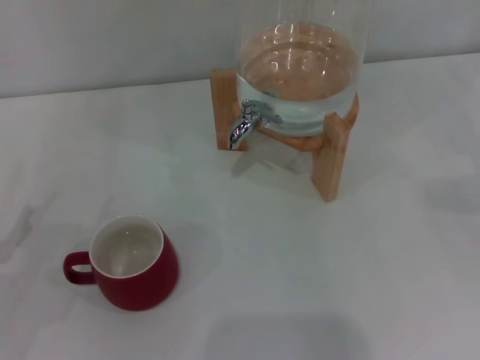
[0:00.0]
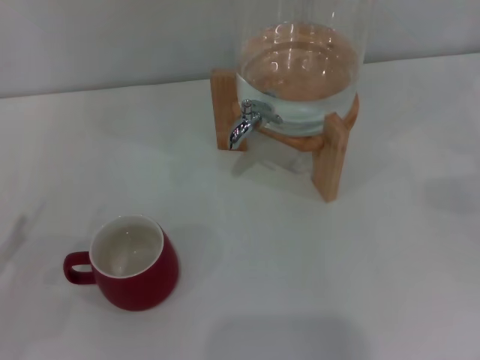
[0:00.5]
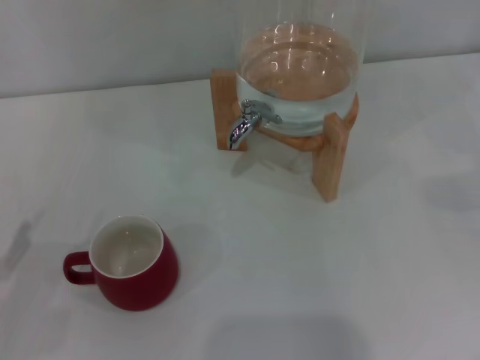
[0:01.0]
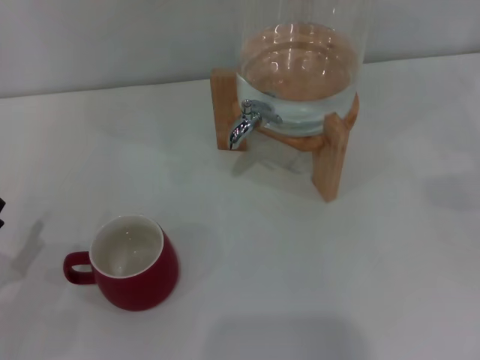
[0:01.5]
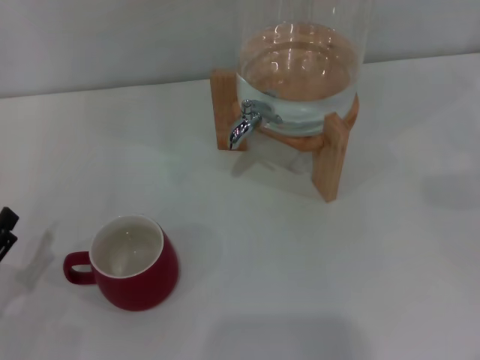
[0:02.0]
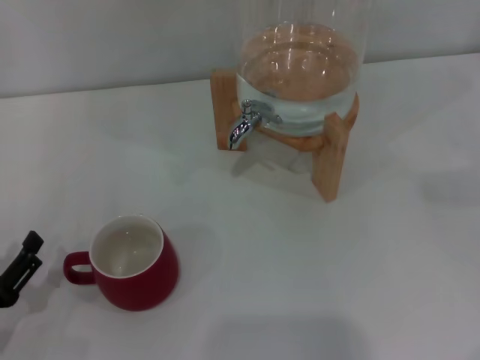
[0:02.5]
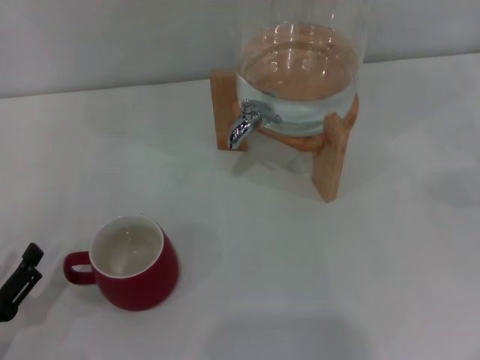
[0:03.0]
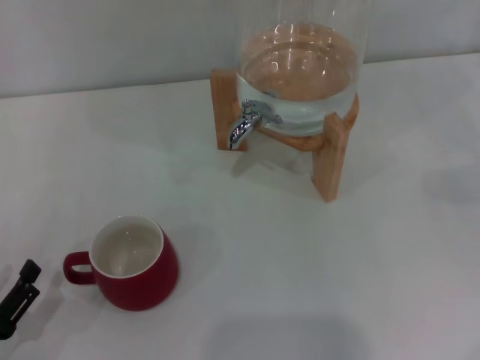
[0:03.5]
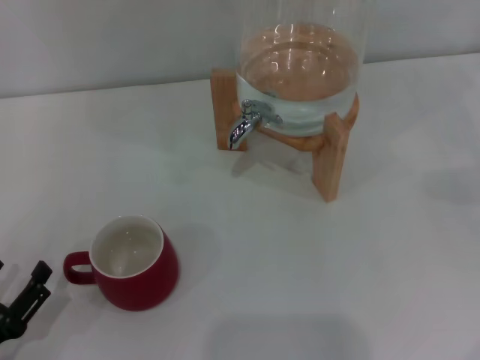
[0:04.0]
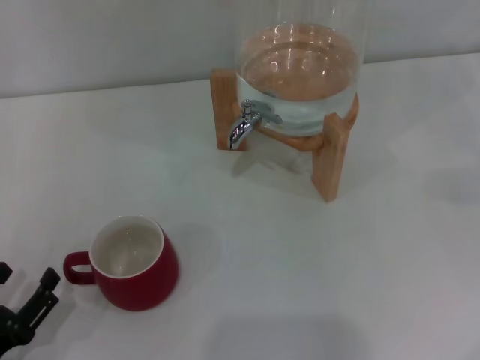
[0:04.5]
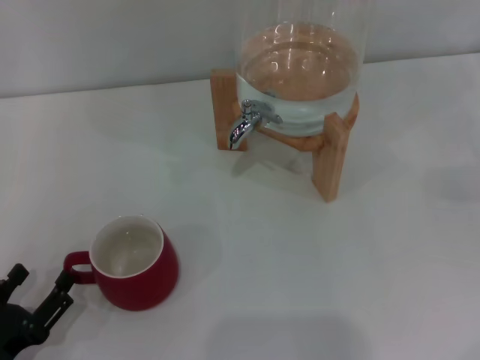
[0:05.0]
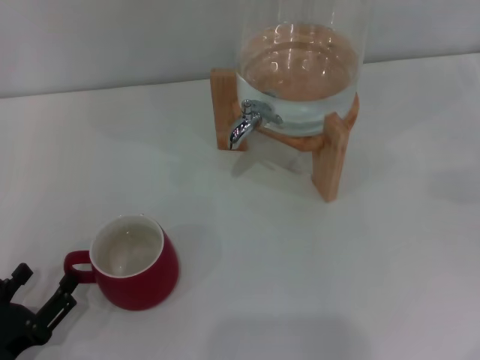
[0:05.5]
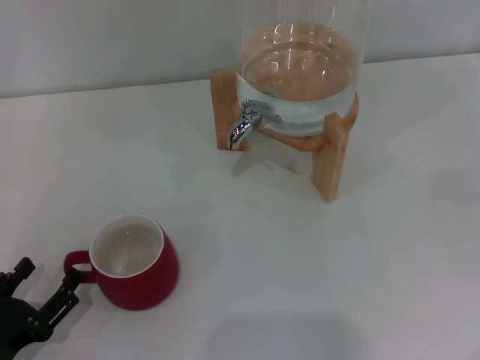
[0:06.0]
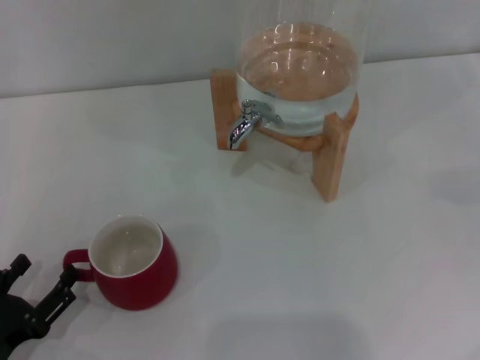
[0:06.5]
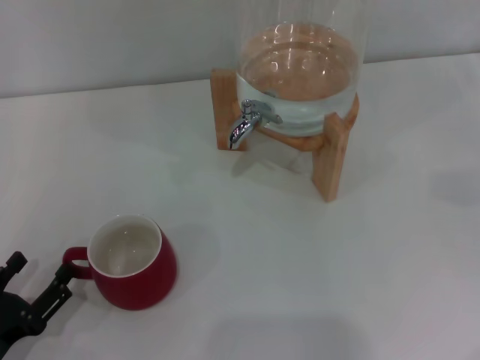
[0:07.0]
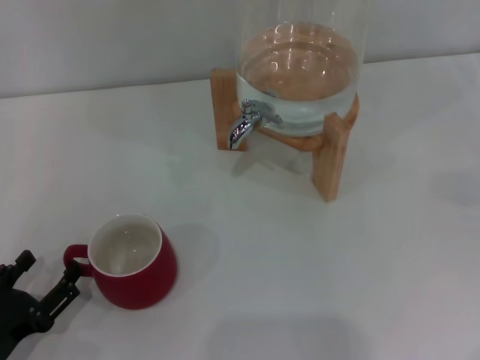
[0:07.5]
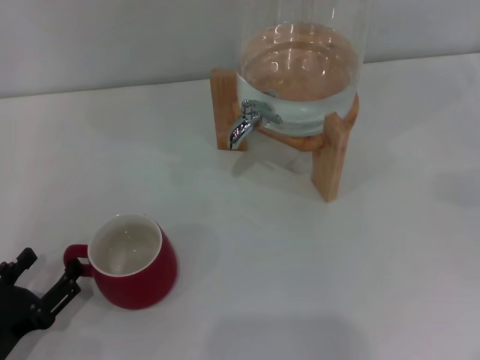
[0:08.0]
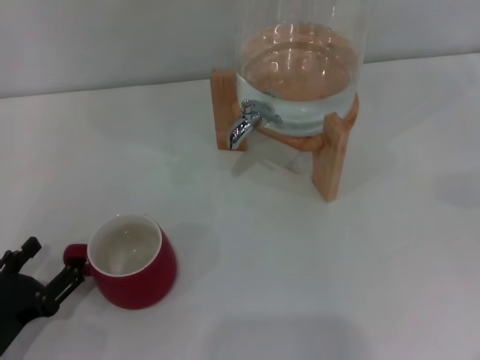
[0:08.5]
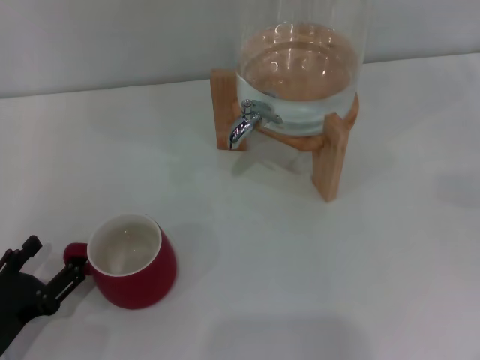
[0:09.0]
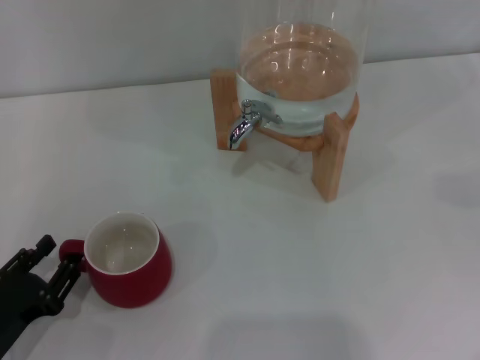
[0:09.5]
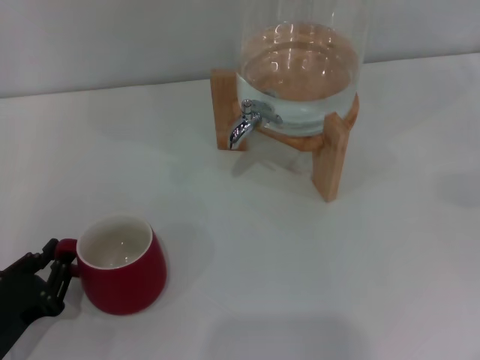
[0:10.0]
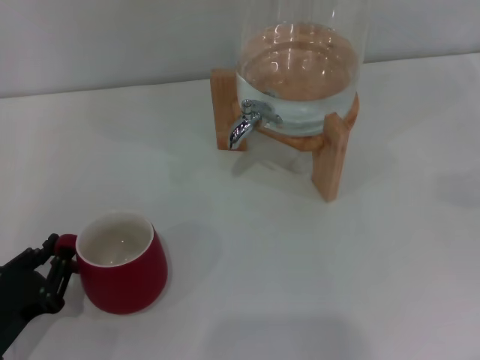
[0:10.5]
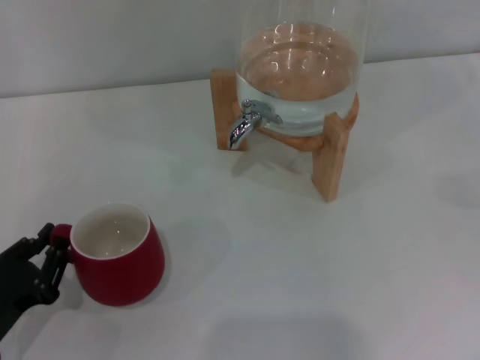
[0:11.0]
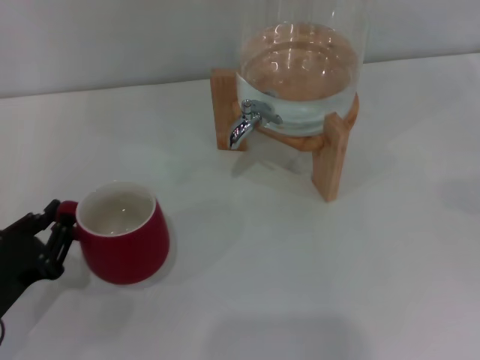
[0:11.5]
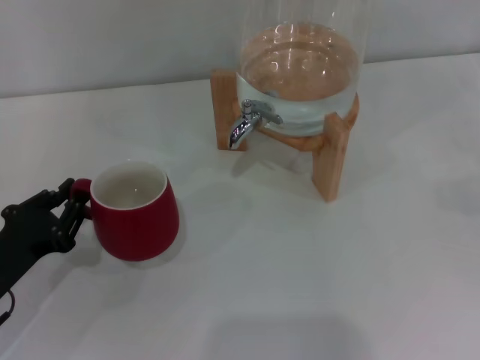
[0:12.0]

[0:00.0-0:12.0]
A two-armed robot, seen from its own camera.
Task of the whole recording: the left gripper pick up the red cup and place it horizontally under the faucet, the right gripper turn on the faucet to fill the cup, and then turn off the faucet.
0:02.0 to 0:06.0: The grippers stay close to where they were, moving slightly.
0:06.0 to 0:08.0: Neither gripper changes place.
0:08.0 to 0:10.0: The left gripper closes up.
0:10.0 to 0:12.0: The left gripper travels forward by about 5 cm.

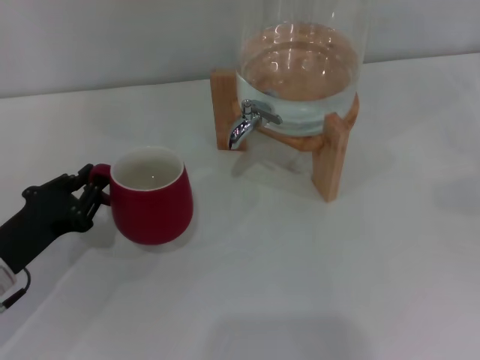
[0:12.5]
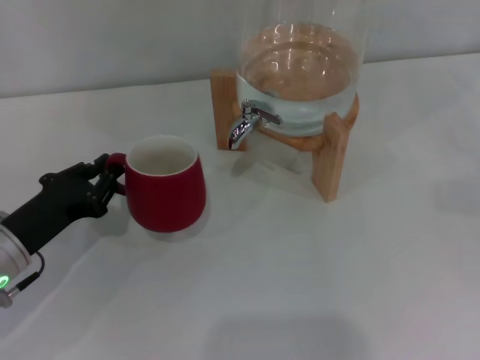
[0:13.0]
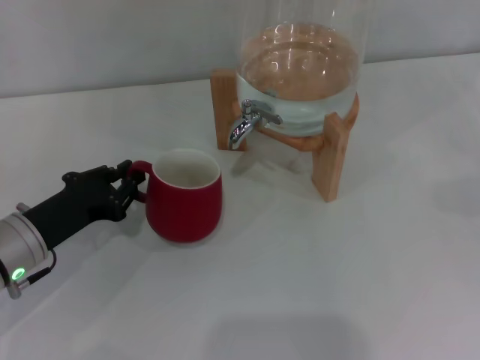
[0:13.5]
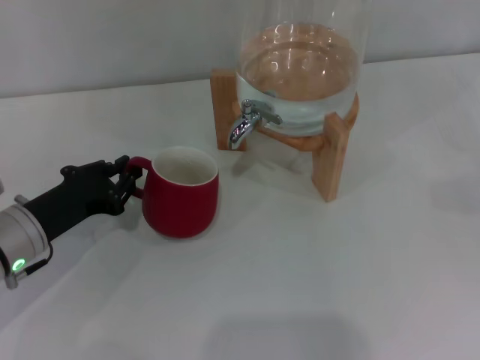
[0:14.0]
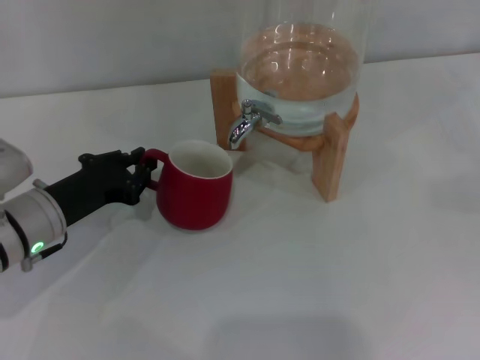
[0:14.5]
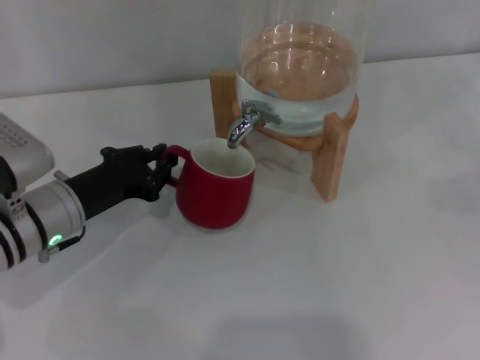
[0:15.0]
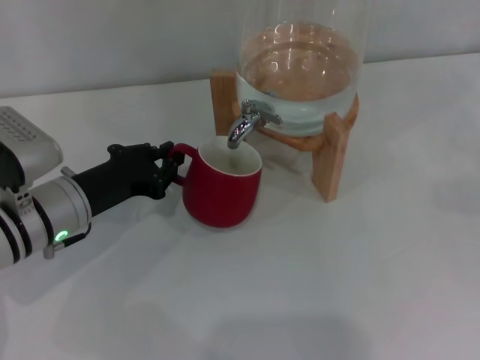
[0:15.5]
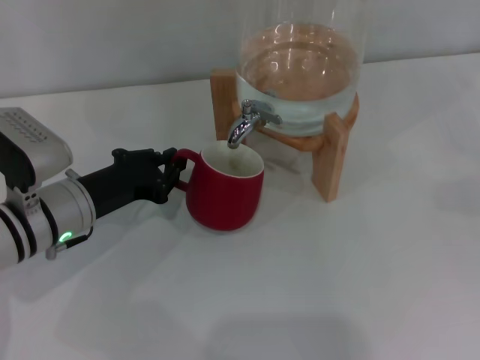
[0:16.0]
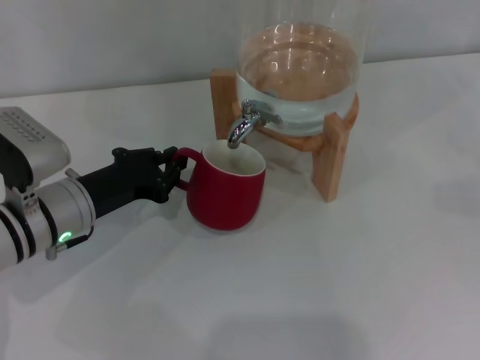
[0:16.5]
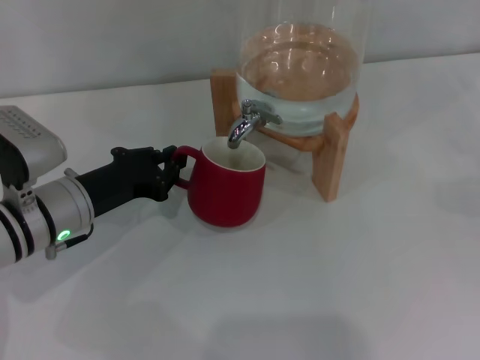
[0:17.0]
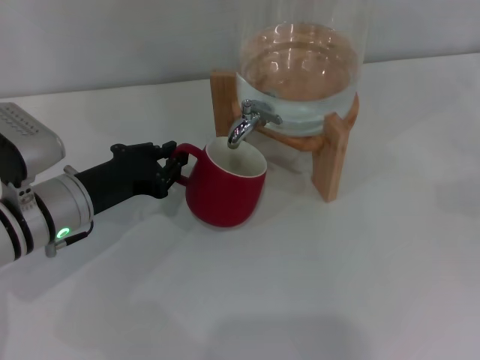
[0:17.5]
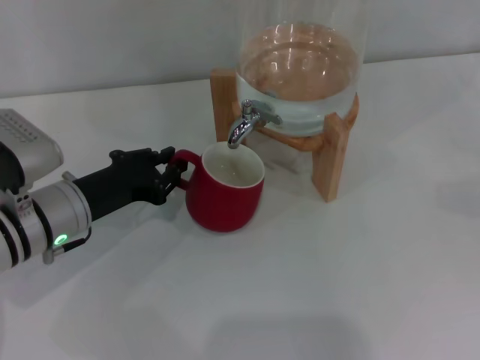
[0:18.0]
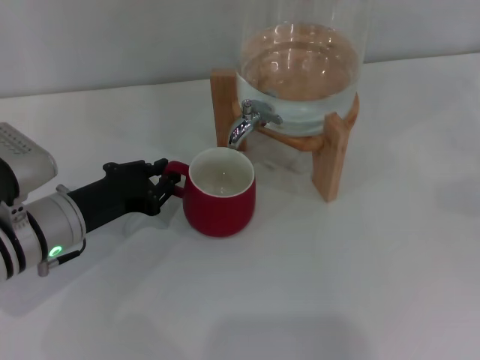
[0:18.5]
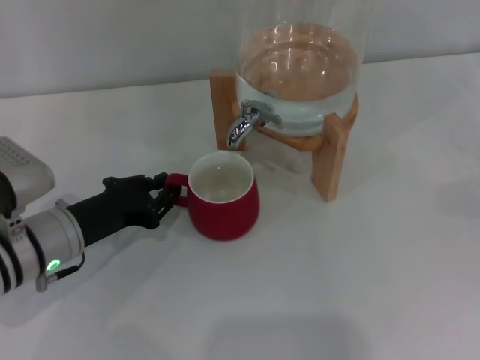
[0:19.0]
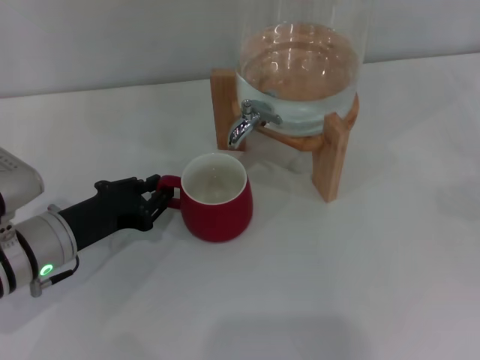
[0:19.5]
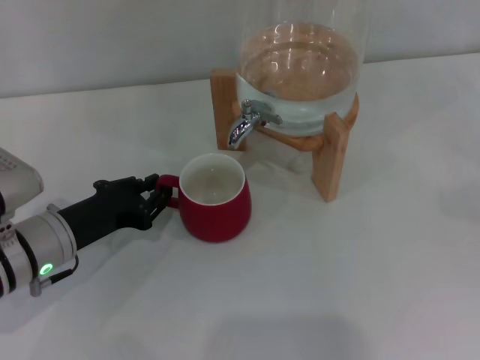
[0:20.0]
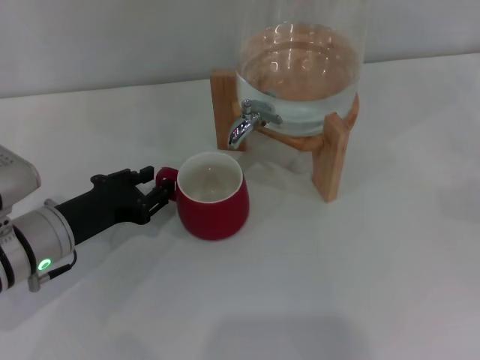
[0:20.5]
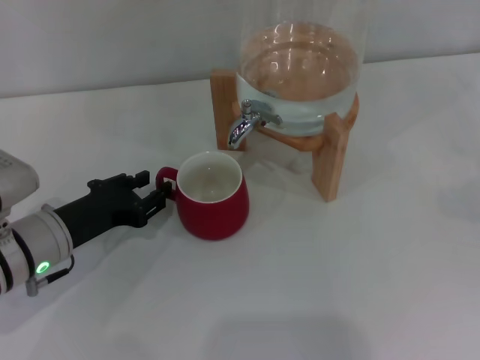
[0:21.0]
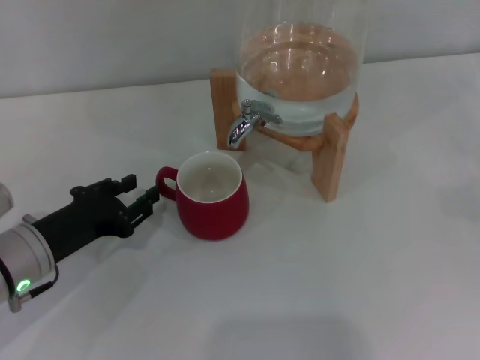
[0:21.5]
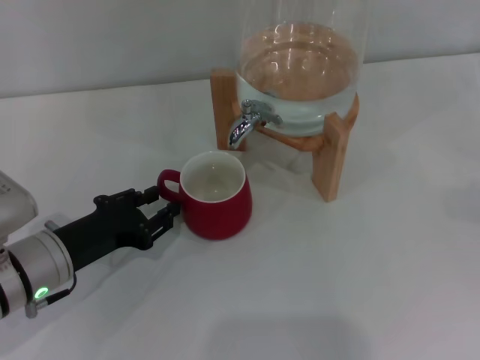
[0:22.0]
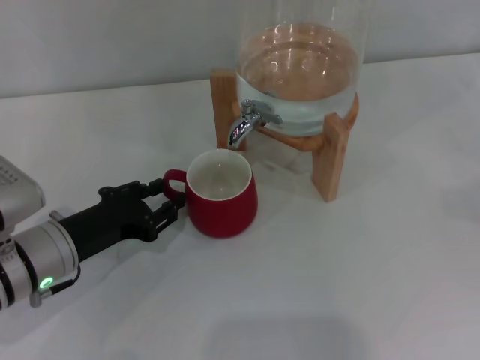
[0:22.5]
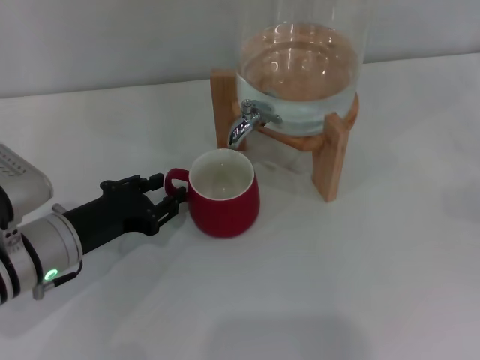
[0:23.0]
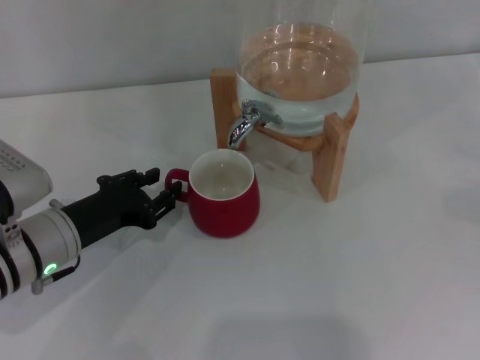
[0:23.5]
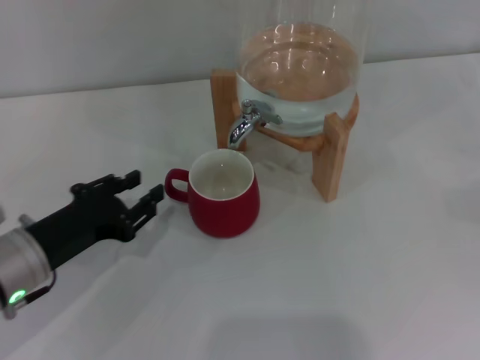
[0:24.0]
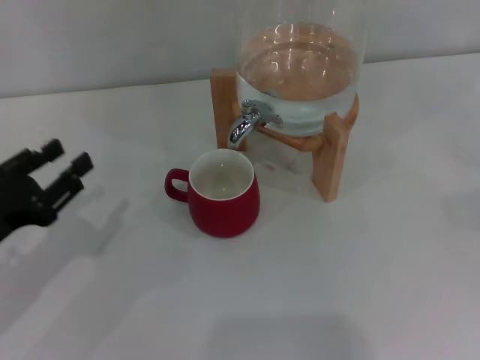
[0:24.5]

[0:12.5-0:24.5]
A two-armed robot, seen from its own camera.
Task of the whole recording: the left gripper pick up the red cup and place it horizontally under the faucet, the right gripper turn on the faucet to fill the cup, and then turn off the faucet.
Step, 0:12.5 to 0:24.0: Move the cup beneath the water dispenser nozzle with the left gripper.
0:12.5 to 0:14.5: The left gripper travels forward by approximately 5 cm.
0:14.5 to 0:22.5: The grippers make only small movements.
0:22.5 to 0:24.5: The left gripper travels to the left by approximately 5 cm.

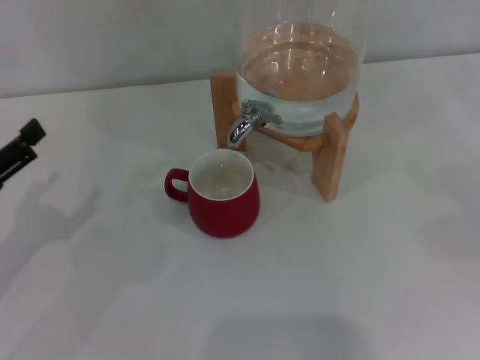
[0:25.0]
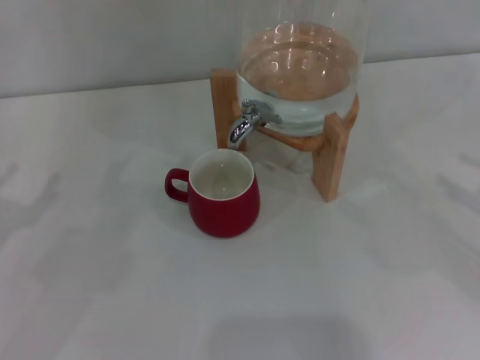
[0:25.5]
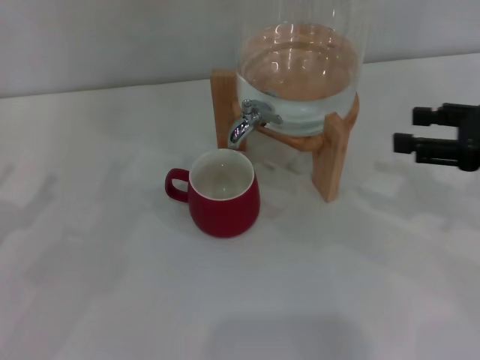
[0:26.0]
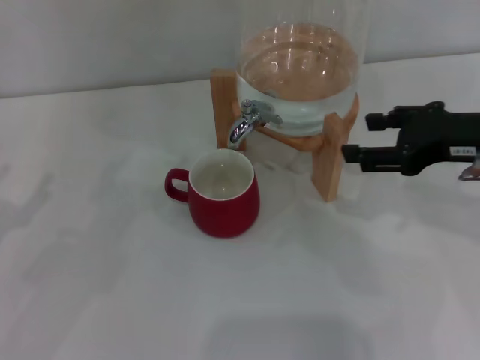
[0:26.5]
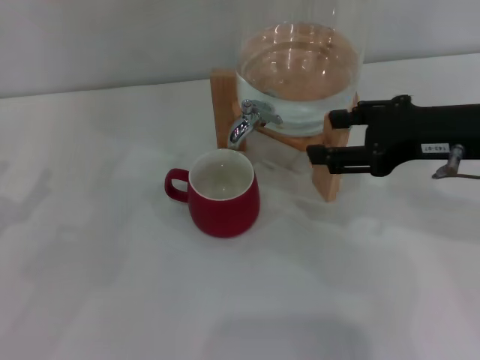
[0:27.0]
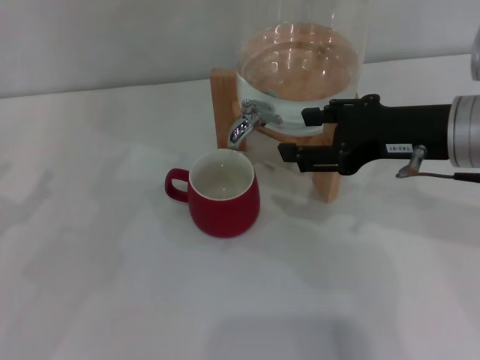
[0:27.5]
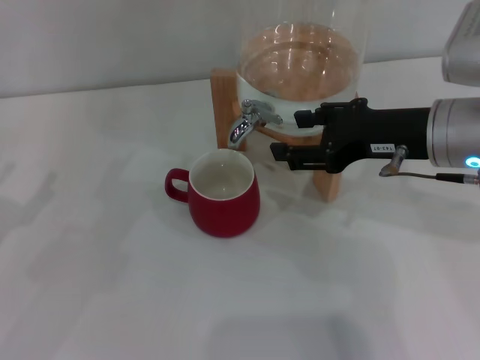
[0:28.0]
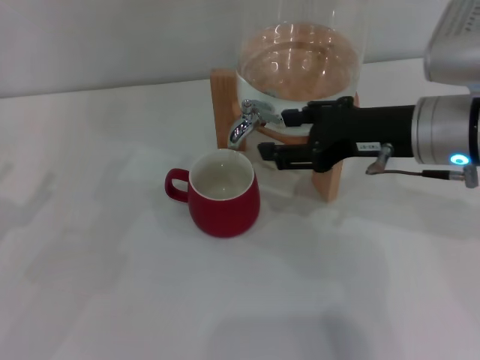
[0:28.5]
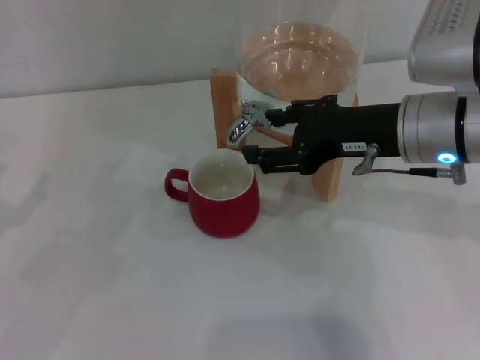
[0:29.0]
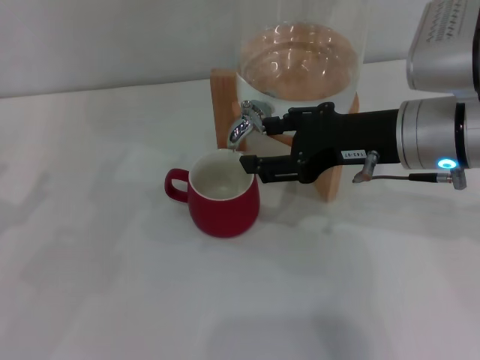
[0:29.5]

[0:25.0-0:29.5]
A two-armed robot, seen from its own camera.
Task of the whole recording: the left gripper pick up the red cup and place it horizontally under the faucet, the right gripper turn on the faucet to fill the cup, and then turn off the faucet.
0:25.0 to 0:27.0: The right gripper heads to the left, covering about 20 cm.
0:27.0 to 0:29.5: The right gripper shifts roughly 5 cm to the left.
